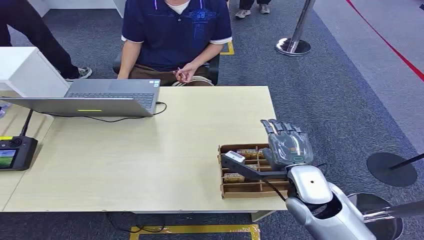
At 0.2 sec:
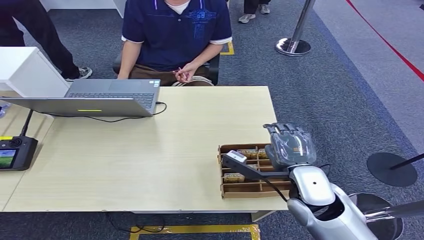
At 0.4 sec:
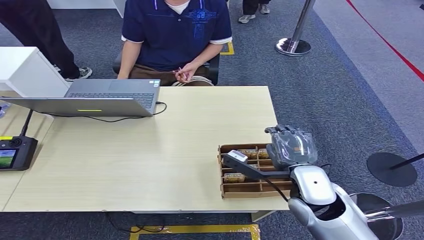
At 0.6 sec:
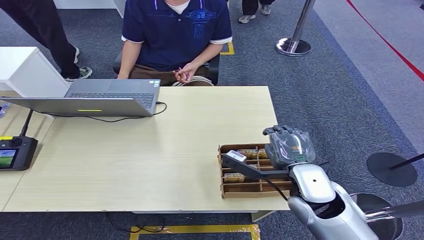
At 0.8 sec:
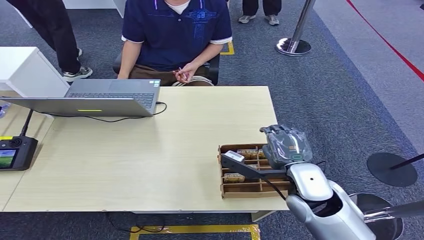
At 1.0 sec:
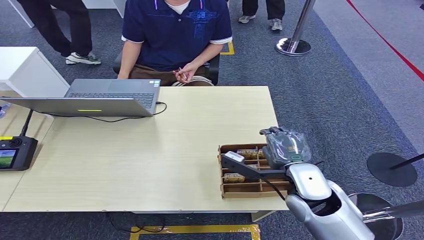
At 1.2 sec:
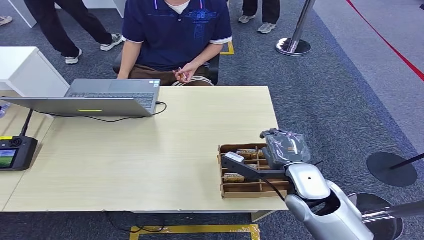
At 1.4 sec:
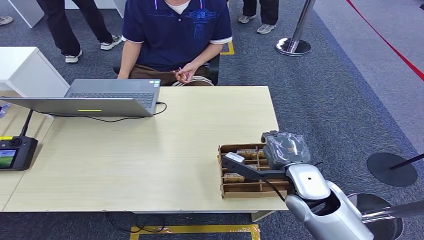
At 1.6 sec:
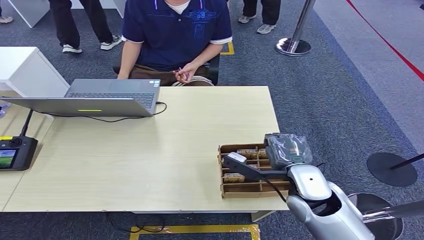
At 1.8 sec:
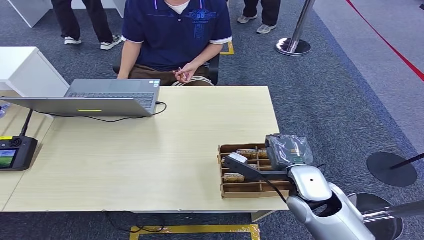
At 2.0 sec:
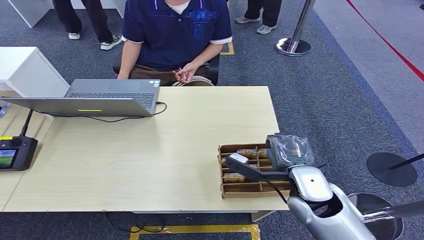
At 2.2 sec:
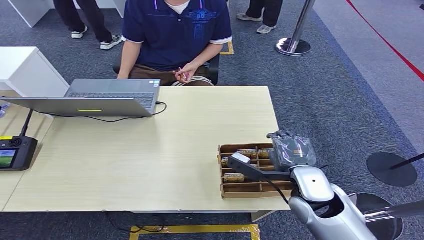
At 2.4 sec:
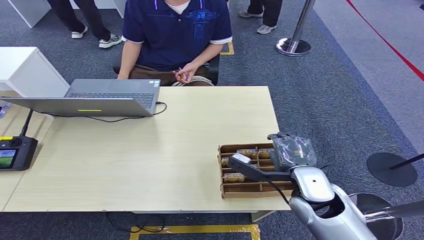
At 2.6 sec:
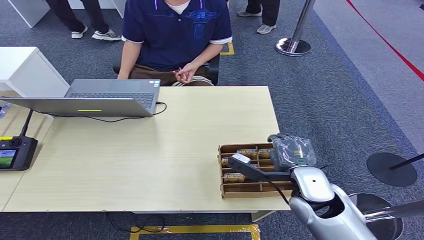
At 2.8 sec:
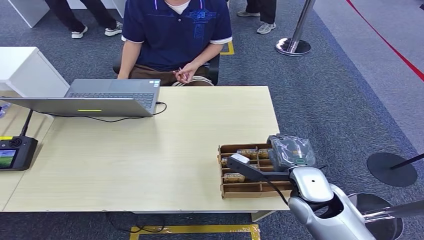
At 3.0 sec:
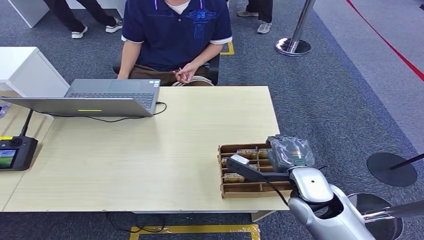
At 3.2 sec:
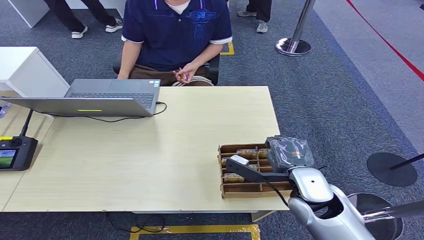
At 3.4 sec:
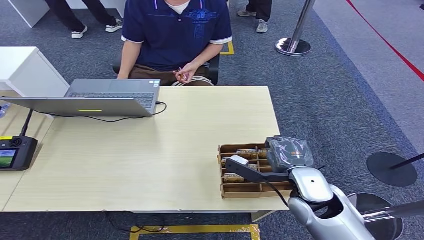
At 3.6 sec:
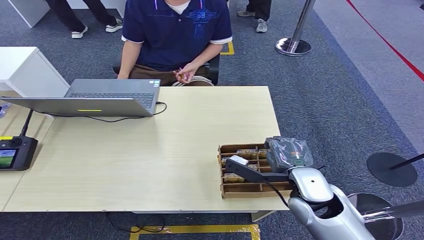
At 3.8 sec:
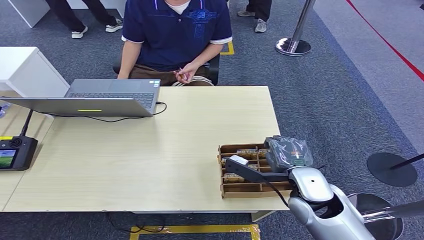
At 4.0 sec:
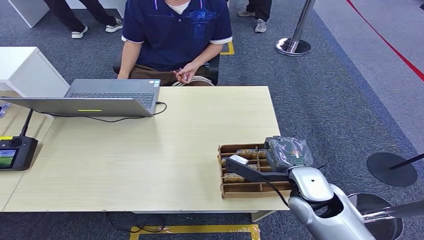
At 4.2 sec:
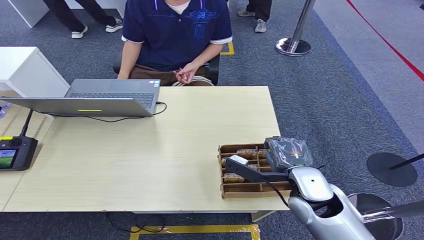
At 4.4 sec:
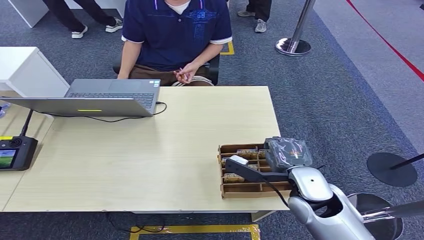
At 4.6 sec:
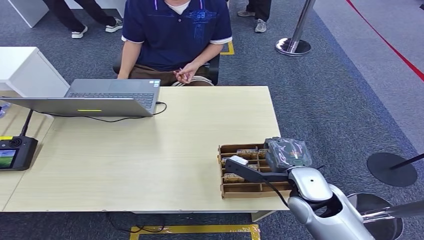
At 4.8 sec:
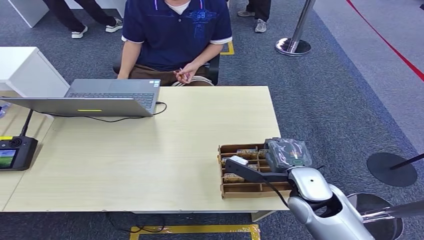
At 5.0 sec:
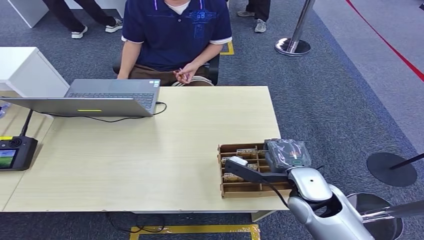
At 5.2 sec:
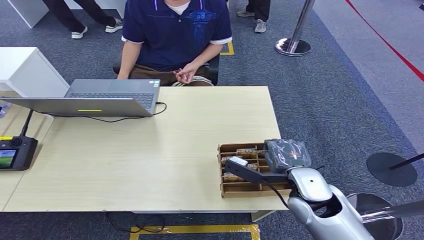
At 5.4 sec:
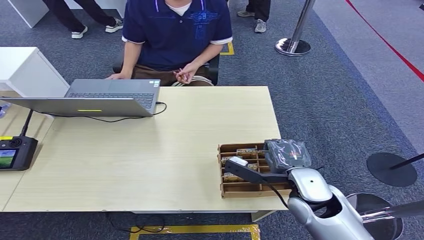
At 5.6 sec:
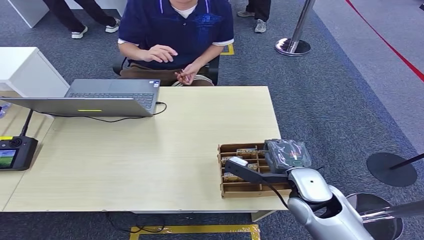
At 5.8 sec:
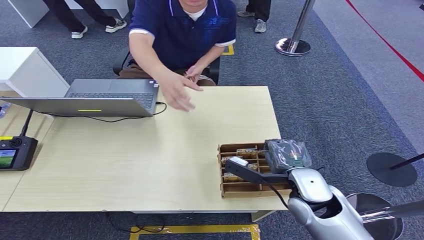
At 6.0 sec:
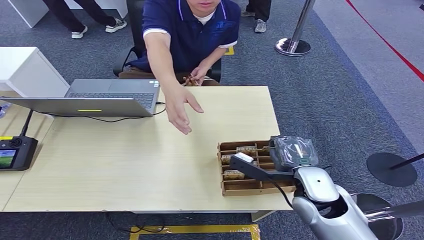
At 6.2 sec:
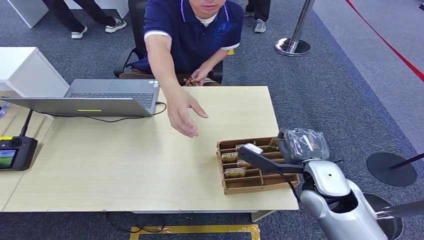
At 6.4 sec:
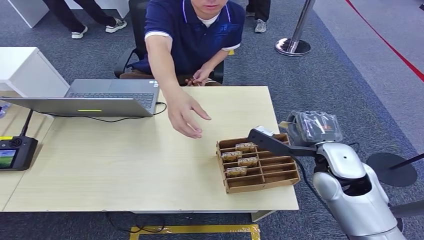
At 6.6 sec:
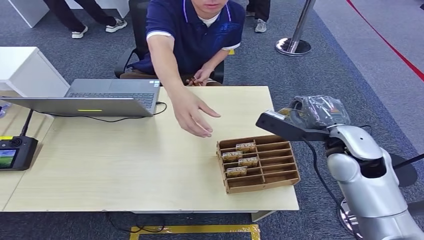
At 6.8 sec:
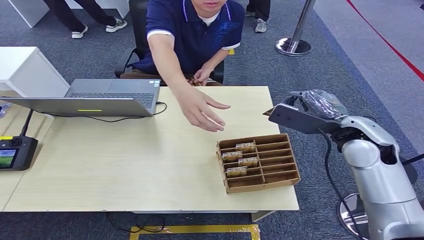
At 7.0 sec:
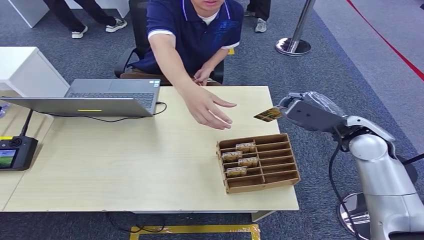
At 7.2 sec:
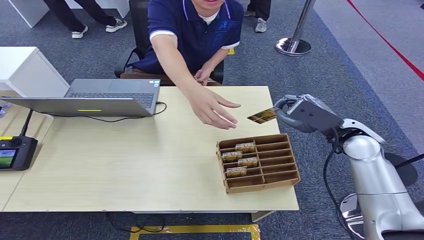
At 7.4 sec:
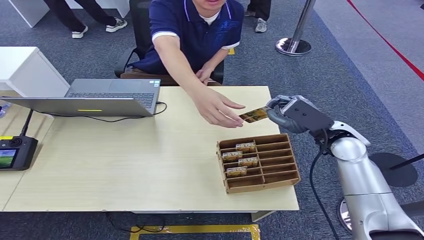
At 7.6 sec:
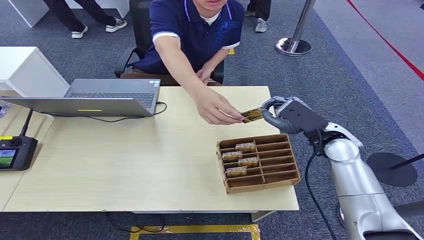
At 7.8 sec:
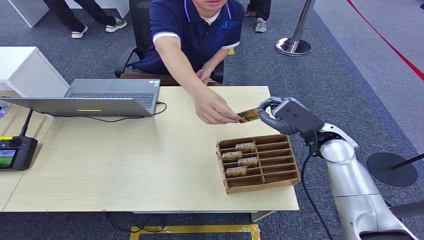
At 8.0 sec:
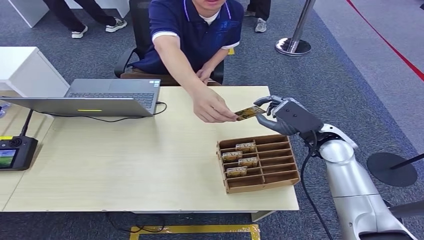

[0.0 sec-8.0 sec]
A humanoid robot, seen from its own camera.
Step, 0.0 sec to 6.8 sec: Pick up the key card from the card box.
Step, 7.2 sec to 8.0 sec: Hand the key card to the target.
1.6 sec to 3.2 sec: Both hands stay about where they are.
3.2 sec to 4.8 sec: The two hands keep their place.
4.8 sec to 6.4 sec: The right hand heads upward, covering approximately 5 cm.
6.4 sec to 8.0 sec: The right hand is displaced forward by approximately 10 cm.

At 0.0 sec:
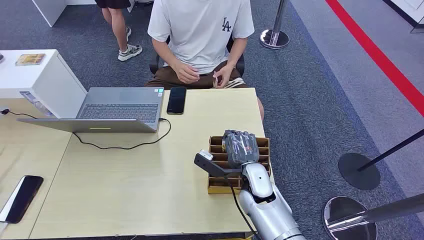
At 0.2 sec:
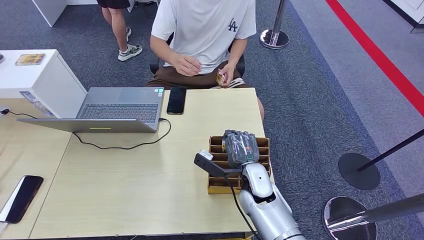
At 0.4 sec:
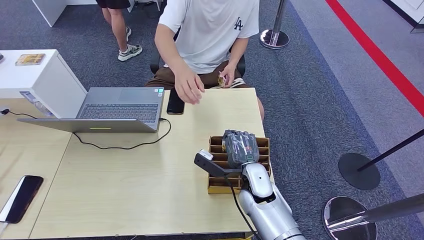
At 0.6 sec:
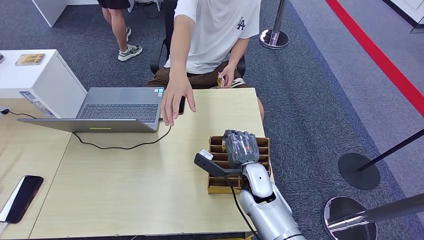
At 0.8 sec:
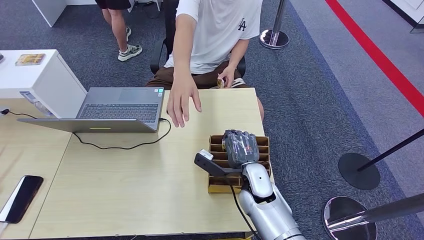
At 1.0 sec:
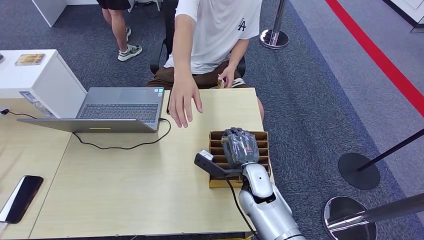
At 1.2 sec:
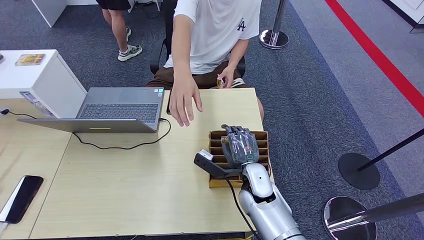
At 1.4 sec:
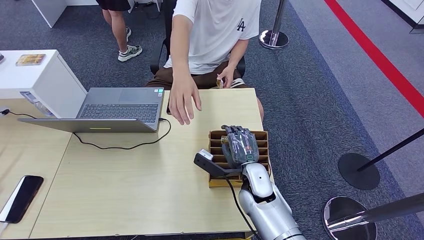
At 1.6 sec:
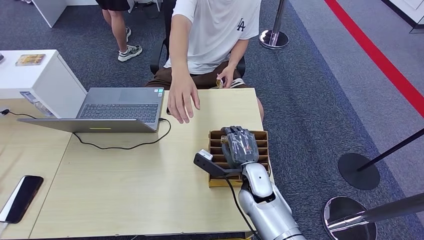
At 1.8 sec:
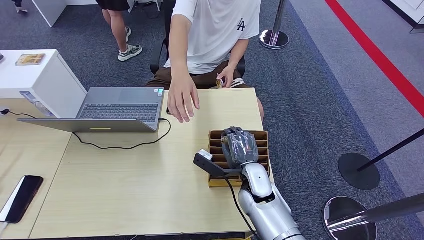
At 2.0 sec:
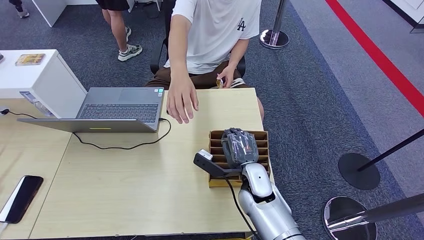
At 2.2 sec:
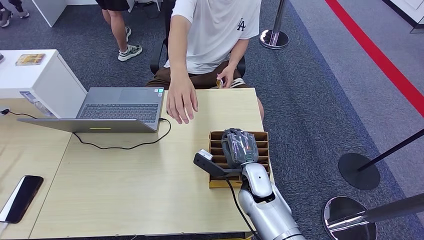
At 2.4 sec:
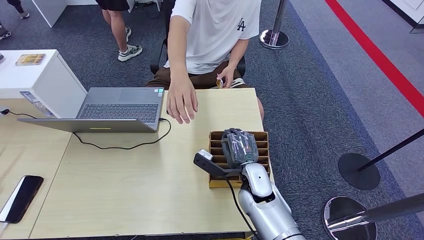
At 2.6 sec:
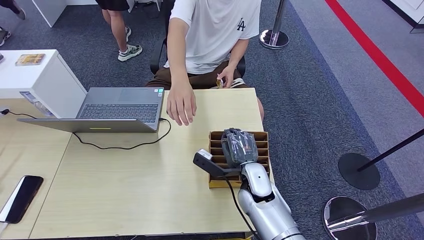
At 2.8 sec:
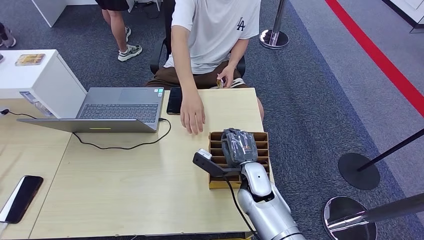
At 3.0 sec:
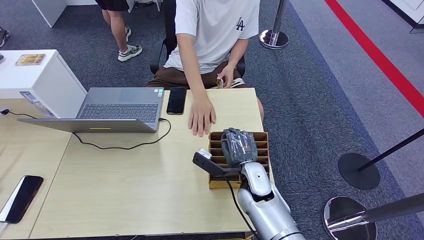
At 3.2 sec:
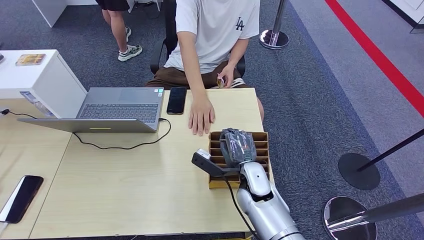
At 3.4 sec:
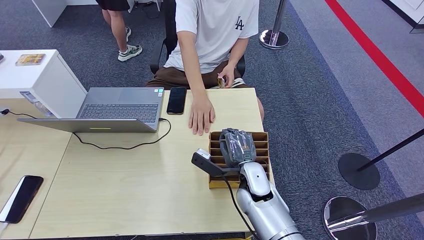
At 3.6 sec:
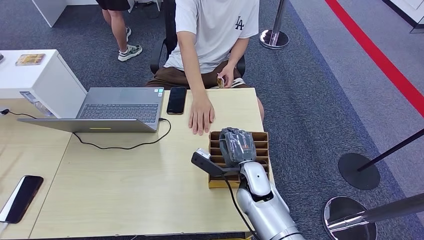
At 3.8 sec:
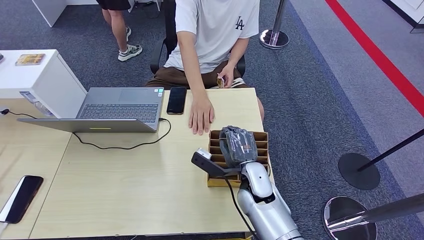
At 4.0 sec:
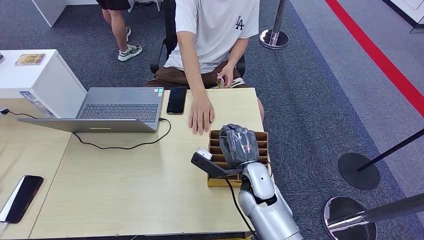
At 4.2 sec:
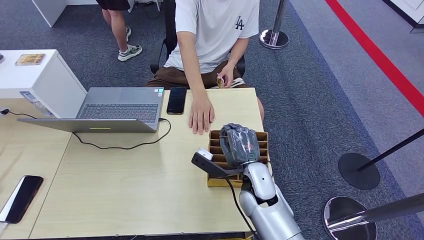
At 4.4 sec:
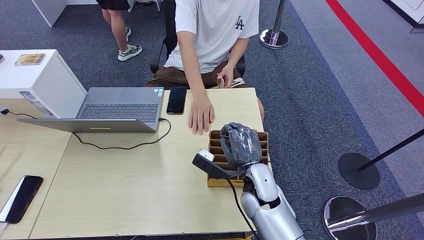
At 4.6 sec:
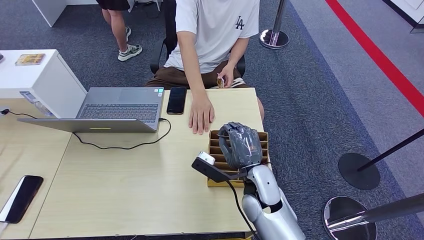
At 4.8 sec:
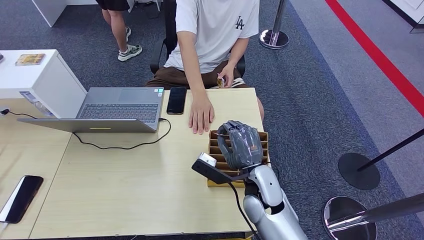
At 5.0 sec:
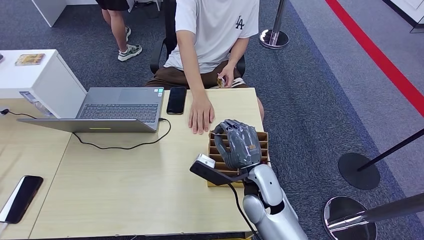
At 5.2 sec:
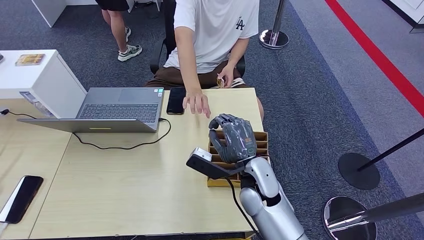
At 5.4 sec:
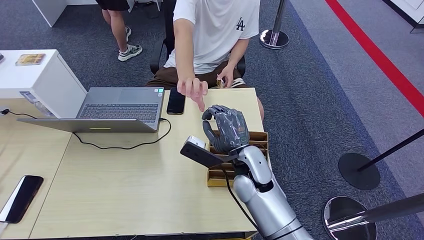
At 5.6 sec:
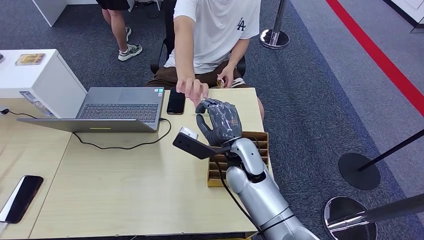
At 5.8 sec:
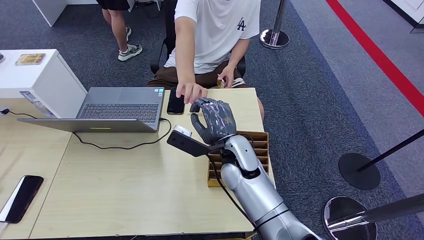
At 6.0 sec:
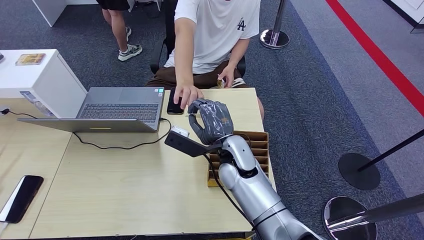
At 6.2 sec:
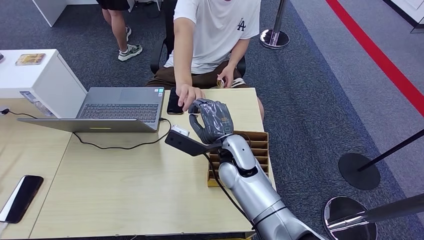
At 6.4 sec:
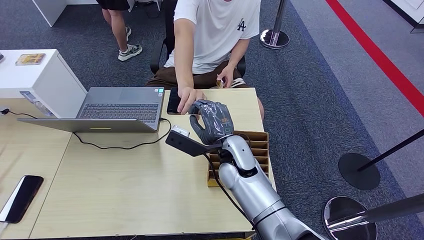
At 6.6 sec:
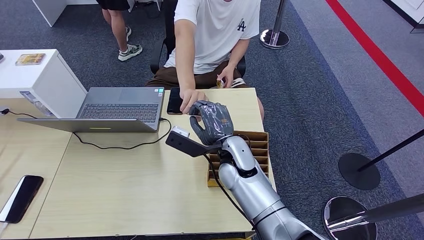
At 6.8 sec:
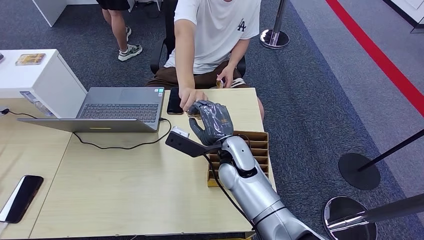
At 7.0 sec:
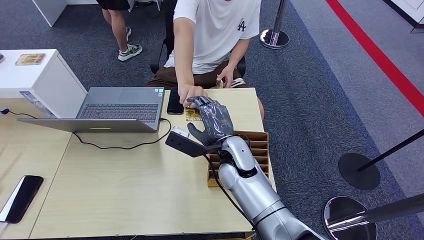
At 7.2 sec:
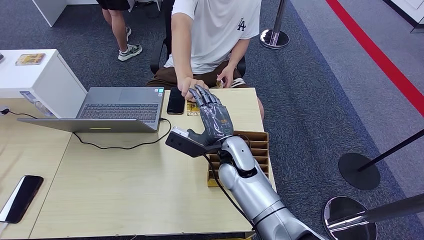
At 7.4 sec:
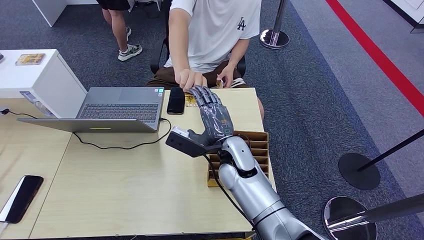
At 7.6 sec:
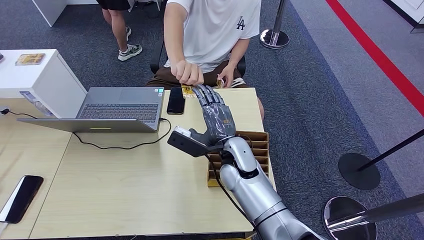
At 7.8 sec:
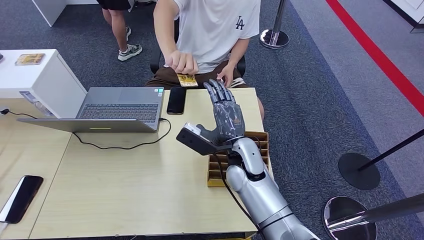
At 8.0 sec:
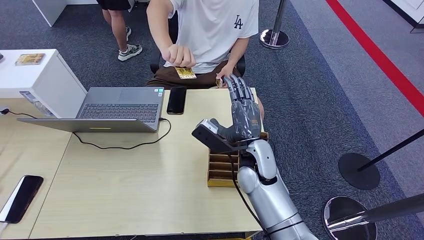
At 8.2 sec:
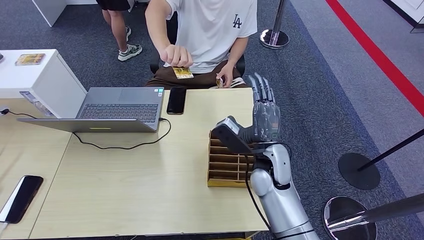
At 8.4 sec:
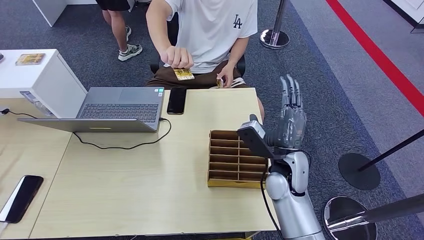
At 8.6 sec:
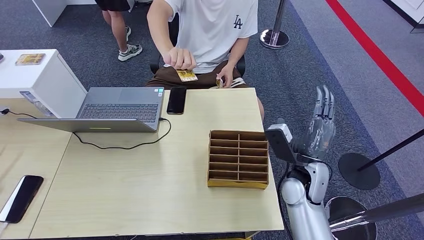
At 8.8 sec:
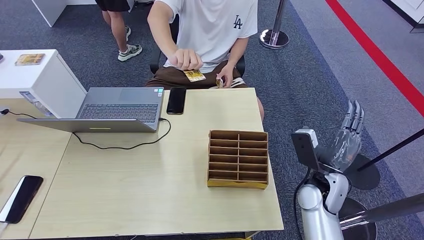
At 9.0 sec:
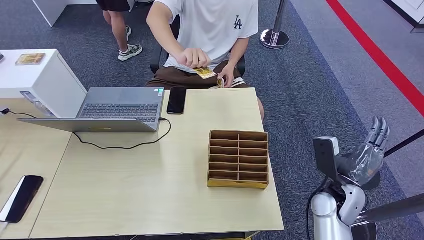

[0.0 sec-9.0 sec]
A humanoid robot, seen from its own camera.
Step, 0.0 sec to 5.2 sec: Pick up the key card from the card box.
Step, 5.4 sec to 8.8 sec: Hand the key card to the target.
1.6 sec to 3.0 sec: Both hands stay put.
3.0 sec to 4.4 sec: The hands stay close to where they were, moving slightly.
4.4 sec to 6.0 sec: The right hand travels to the left, forward and upward by approximately 10 cm.
6.0 sec to 7.6 sec: Both hands stay put.
7.6 sec to 9.0 sec: The right hand is displaced to the right by about 25 cm.
